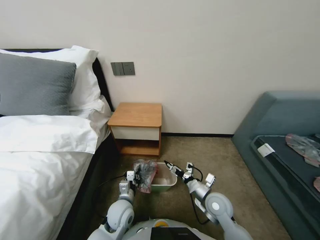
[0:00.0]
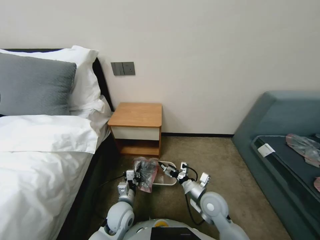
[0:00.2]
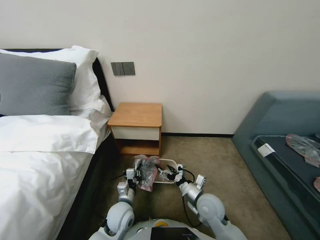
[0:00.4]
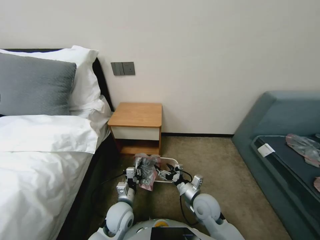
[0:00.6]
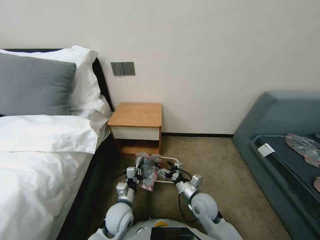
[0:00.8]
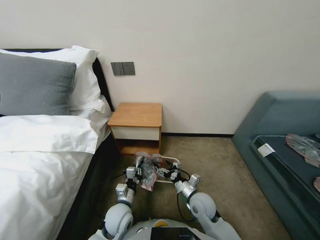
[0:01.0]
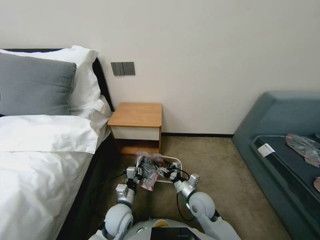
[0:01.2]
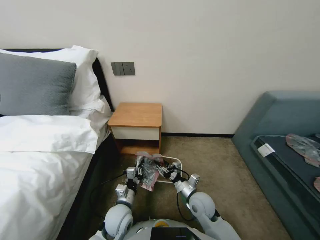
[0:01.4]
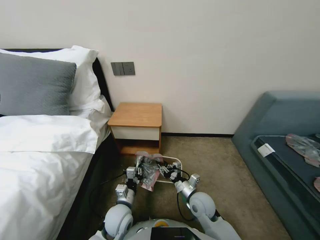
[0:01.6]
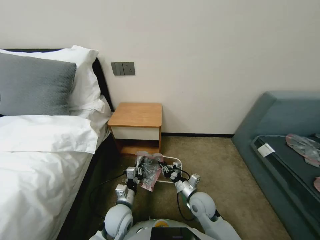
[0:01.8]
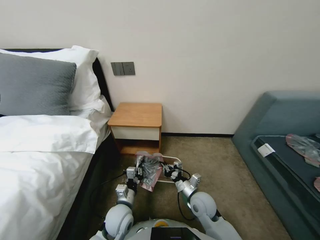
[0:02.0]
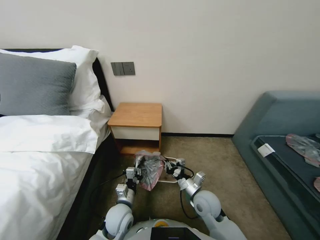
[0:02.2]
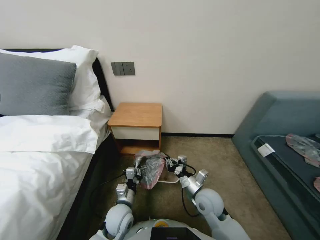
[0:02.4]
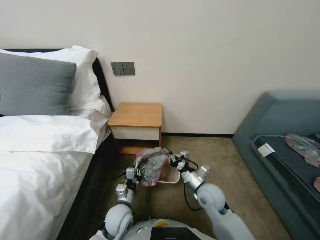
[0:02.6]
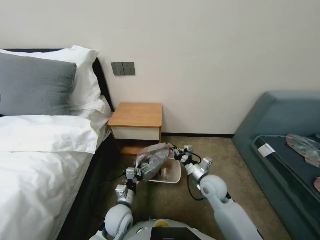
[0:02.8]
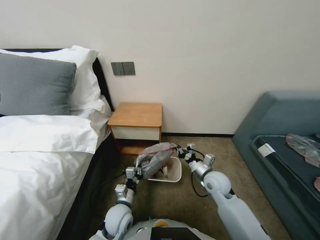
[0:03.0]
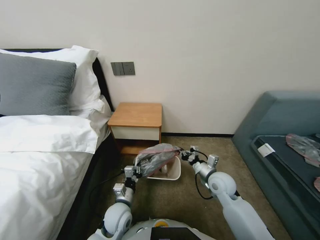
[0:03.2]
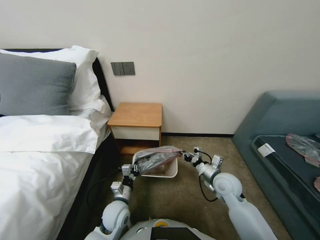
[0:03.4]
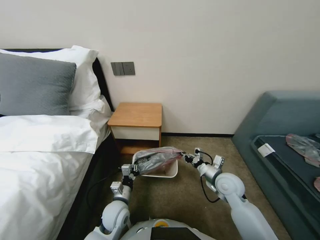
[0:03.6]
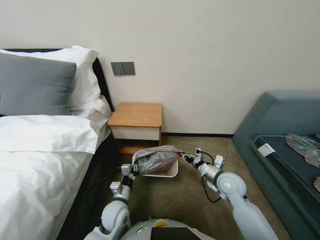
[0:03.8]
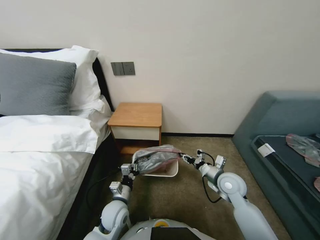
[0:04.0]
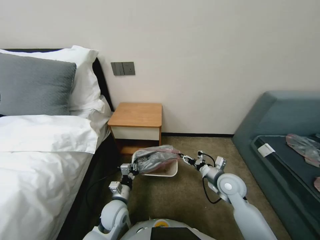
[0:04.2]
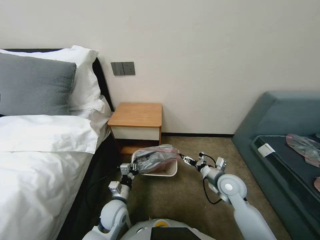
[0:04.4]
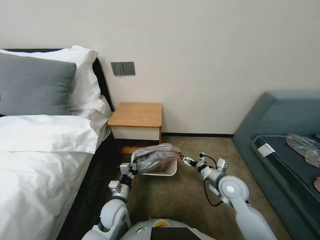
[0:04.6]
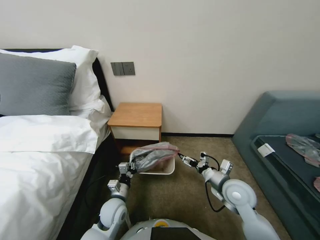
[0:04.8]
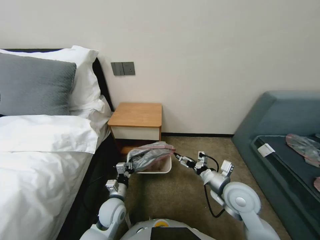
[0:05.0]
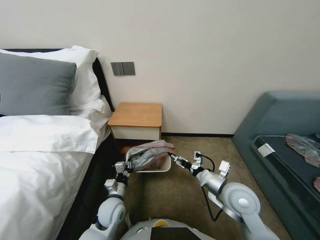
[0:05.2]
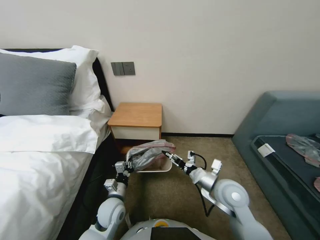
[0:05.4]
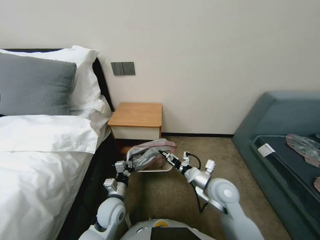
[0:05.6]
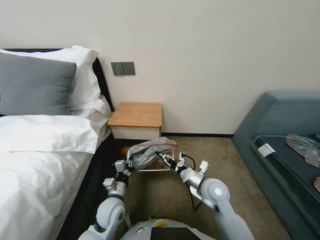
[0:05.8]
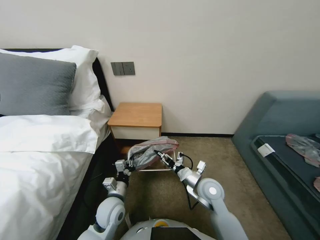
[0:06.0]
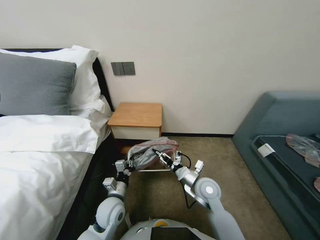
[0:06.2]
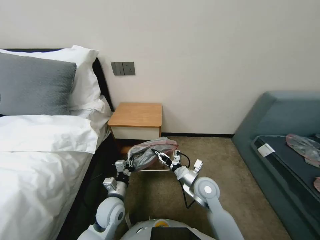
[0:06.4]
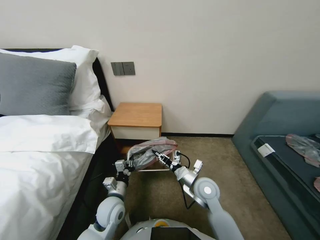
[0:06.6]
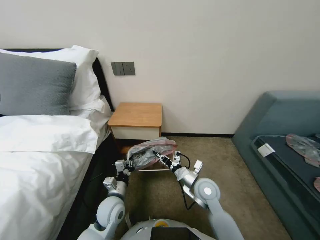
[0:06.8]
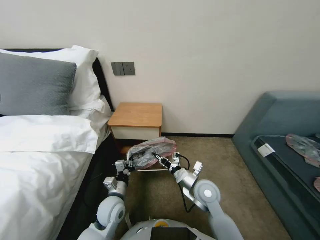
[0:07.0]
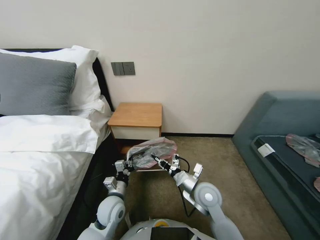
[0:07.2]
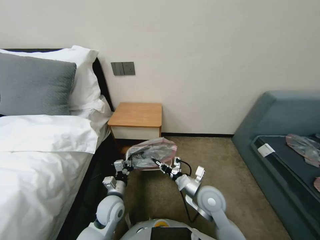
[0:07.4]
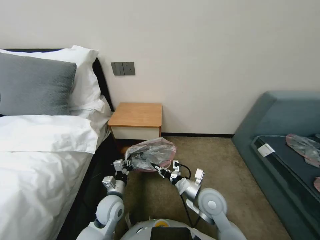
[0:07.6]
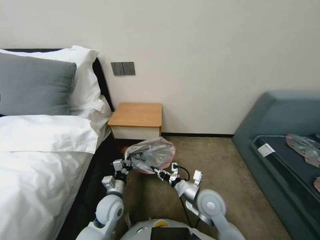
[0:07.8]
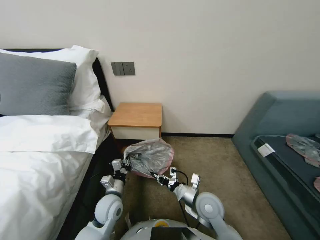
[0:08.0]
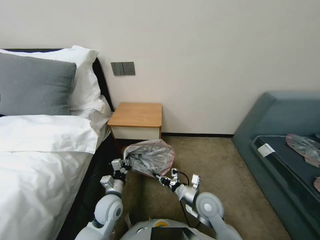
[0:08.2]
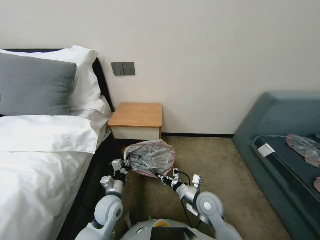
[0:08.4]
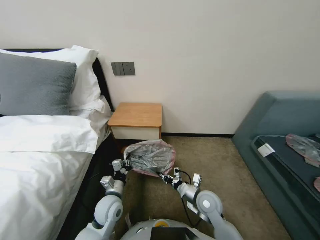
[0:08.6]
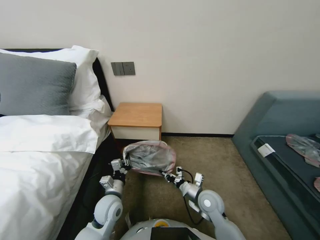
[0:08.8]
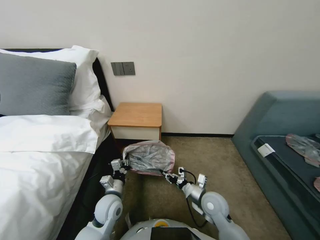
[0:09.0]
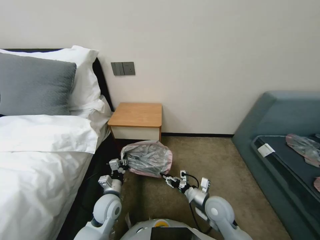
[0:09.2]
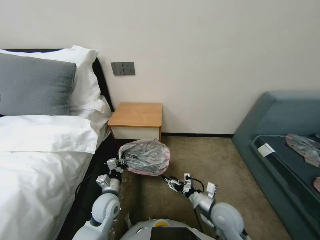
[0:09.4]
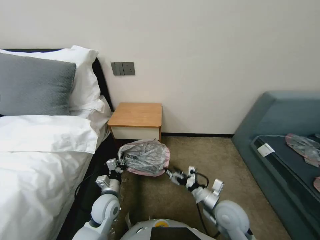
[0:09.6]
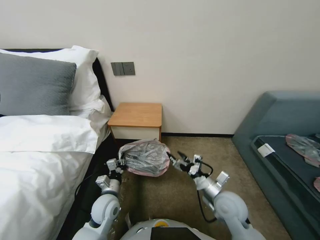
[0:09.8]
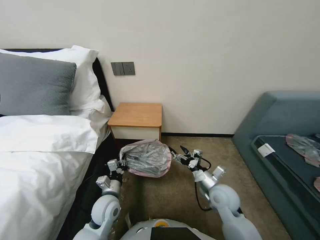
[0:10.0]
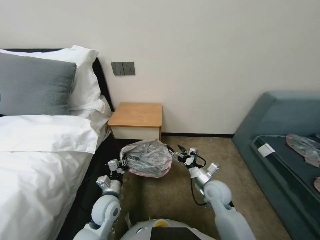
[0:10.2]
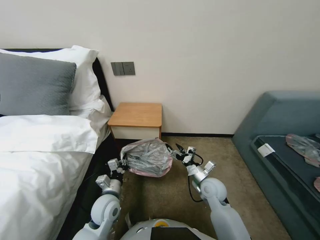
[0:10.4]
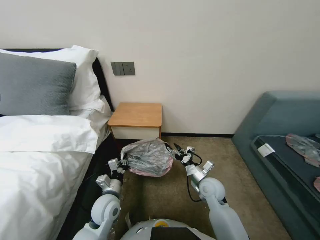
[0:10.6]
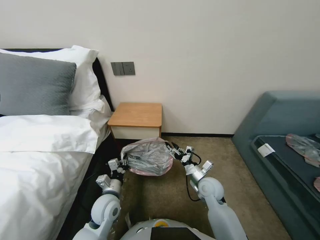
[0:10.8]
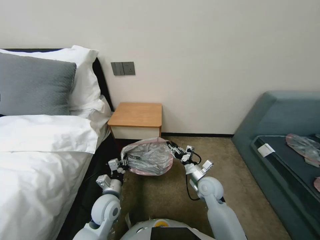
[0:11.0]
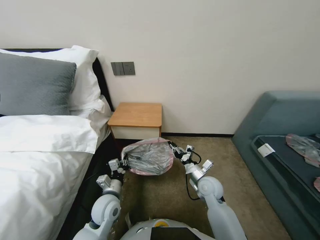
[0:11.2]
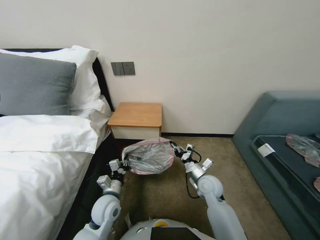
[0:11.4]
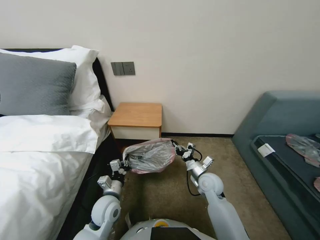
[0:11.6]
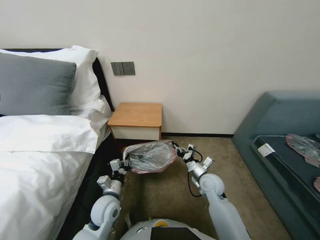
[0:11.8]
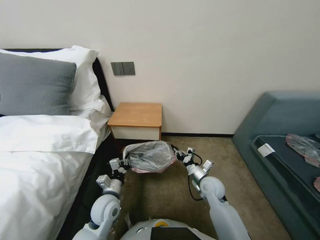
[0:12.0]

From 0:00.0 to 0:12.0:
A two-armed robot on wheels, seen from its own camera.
Task of the whole recording: Pick up the garbage bag from the table and place it over the trash can.
From 0:00.0 to 0:01.6: The right gripper heads to the left, covering about 5 cm, and closes.
From 0:01.6 to 0:03.0: The right gripper moves forward, upward and to the right, some 10 cm, and closes its fingers.
From 0:03.0 to 0:04.4: The right gripper shifts roughly 5 cm to the right, and opens.
From 0:04.4 to 0:06.0: The right gripper travels to the left by some 10 cm.
From 0:06.0 to 0:07.6: The right gripper closes.
From 0:07.6 to 0:09.0: The right gripper goes roughly 5 cm downward.
From 0:09.0 to 0:10.4: The right gripper opens up.
From 0:10.4 to 0:12.0: The right gripper closes up.

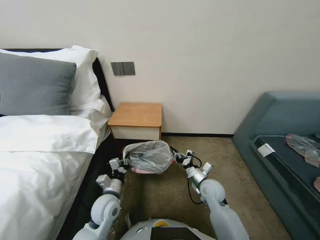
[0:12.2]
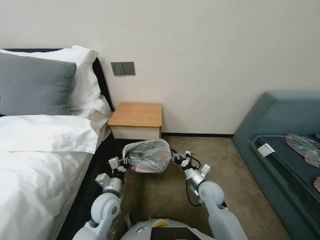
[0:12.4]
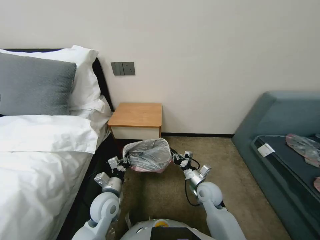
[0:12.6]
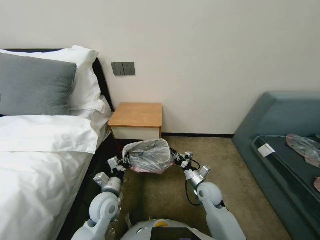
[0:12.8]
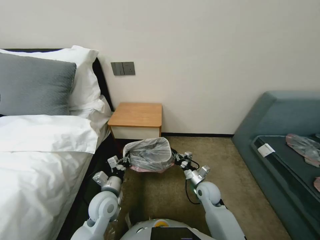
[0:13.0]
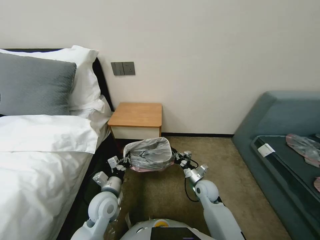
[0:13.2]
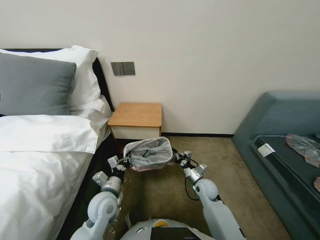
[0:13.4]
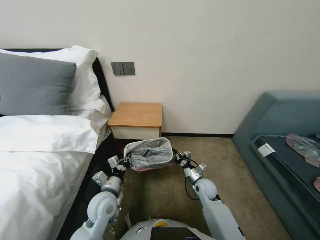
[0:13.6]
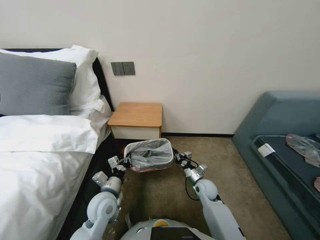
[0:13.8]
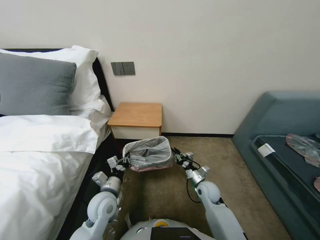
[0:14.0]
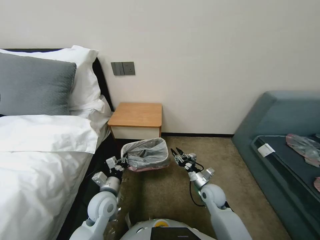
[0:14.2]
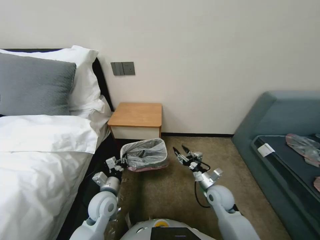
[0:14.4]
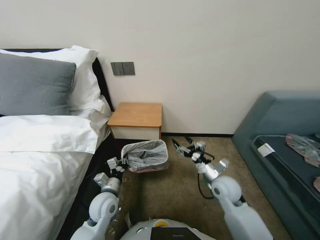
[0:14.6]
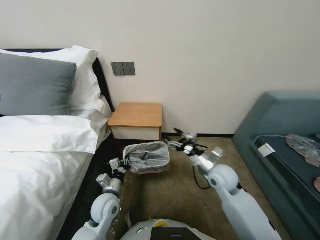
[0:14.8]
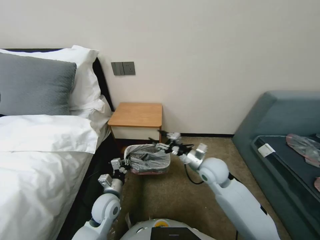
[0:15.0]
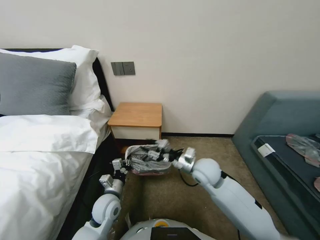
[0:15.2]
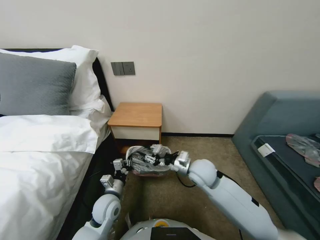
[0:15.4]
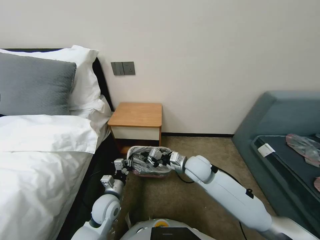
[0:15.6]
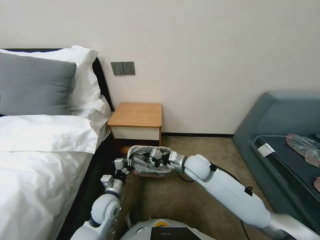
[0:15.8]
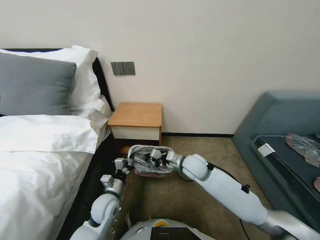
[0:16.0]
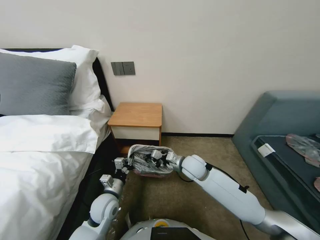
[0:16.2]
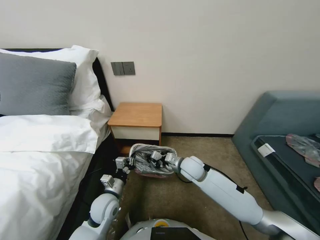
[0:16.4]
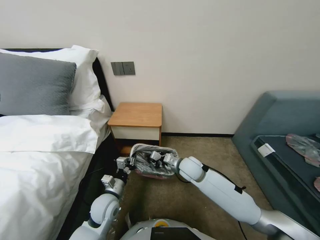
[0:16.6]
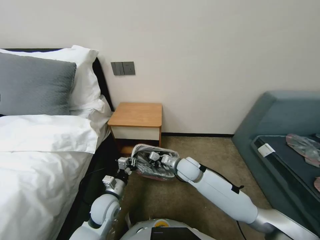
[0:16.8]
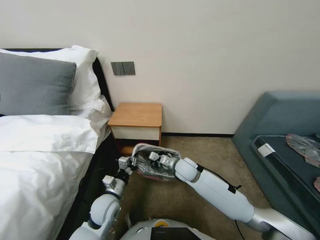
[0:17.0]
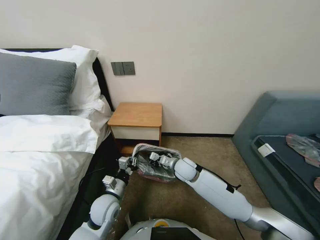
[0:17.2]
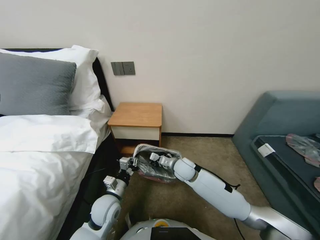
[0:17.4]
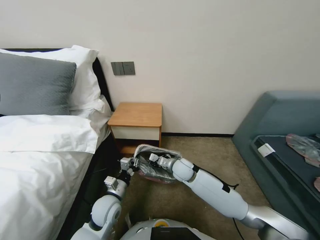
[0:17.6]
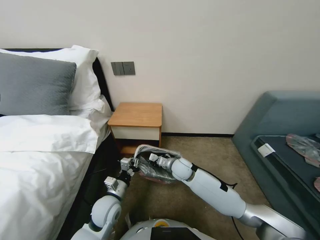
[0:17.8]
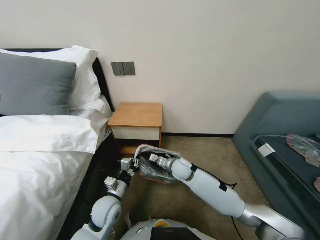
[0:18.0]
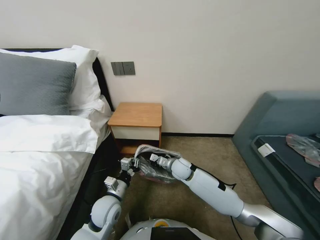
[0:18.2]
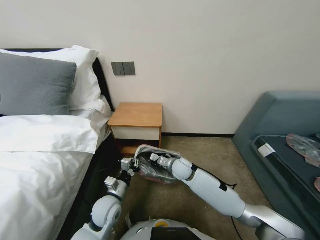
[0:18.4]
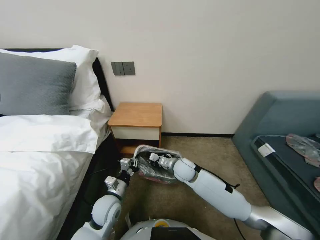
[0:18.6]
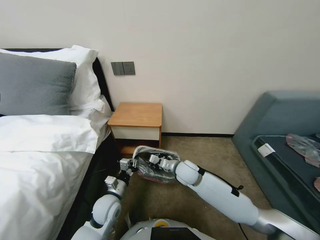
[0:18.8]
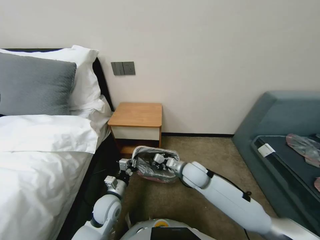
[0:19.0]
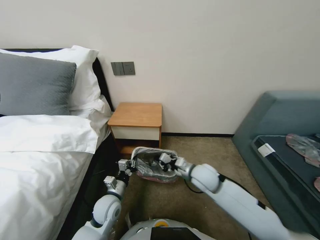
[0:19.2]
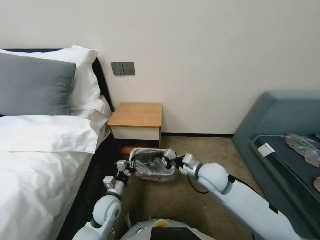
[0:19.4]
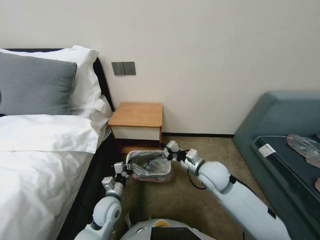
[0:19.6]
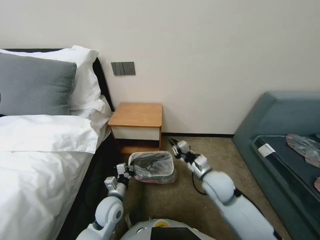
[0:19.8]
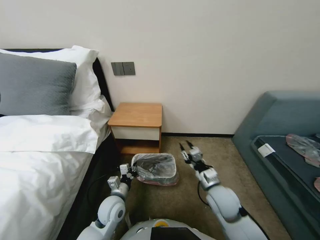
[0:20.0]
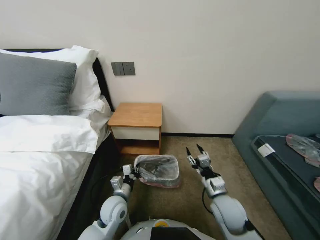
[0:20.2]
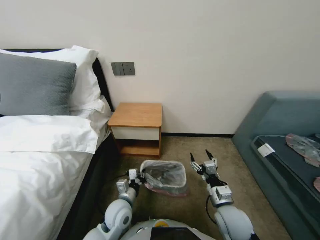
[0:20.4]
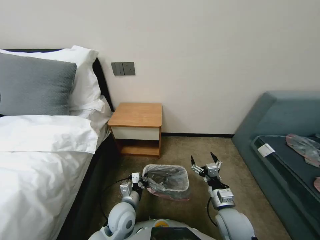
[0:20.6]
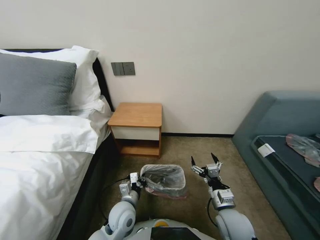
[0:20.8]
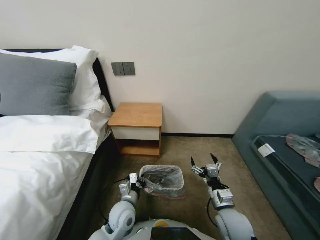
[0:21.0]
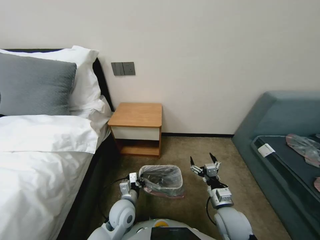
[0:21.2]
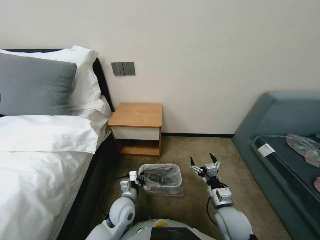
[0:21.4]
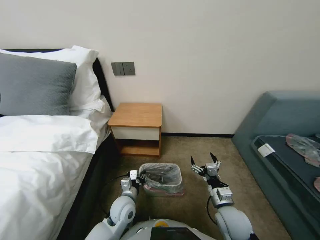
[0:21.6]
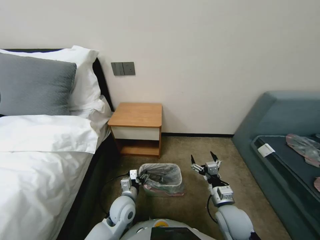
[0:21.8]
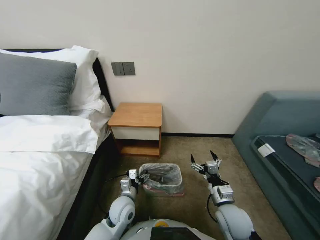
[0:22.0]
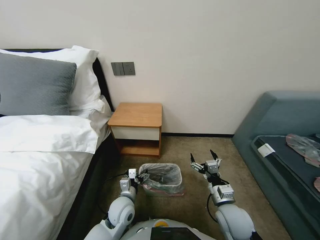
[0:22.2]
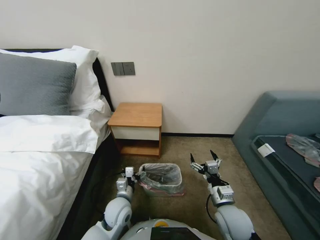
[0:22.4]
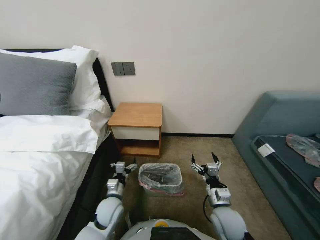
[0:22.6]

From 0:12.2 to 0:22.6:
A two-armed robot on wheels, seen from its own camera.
Task of the whole recording: Pick up the garbage bag from the table and place it over the trash can.
From 0:12.2 to 0:13.6: The right gripper shifts about 5 cm downward.
From 0:13.6 to 0:15.2: The right gripper shifts approximately 20 cm upward, and opens up.
From 0:15.2 to 0:16.6: The right gripper changes place by some 10 cm, and closes.
From 0:16.6 to 0:18.2: The right gripper ends up some 5 cm from where it was.
From 0:18.2 to 0:19.6: The right gripper is displaced upward, to the right and backward by approximately 15 cm.
From 0:19.6 to 0:21.2: The left gripper is displaced to the right by approximately 5 cm; the right gripper heads backward, downward and to the right, covering some 15 cm, and opens its fingers.
From 0:21.2 to 0:22.6: The left gripper opens up.
